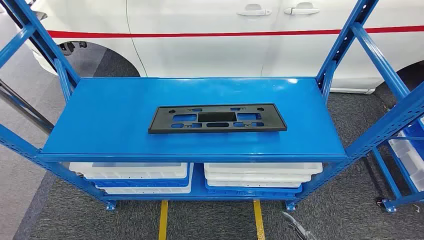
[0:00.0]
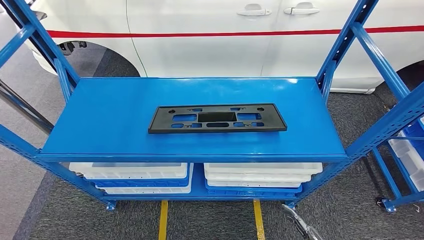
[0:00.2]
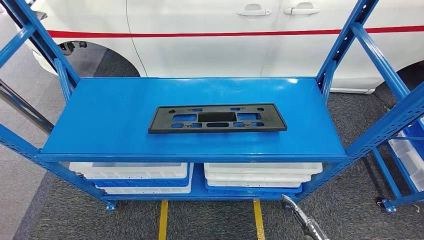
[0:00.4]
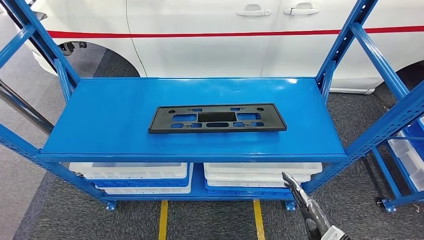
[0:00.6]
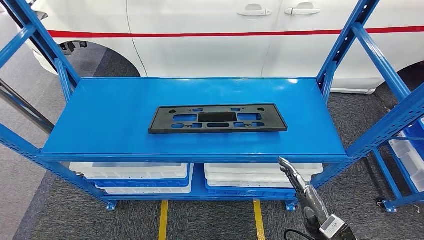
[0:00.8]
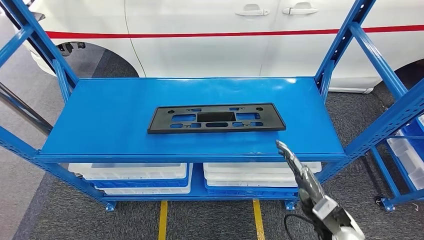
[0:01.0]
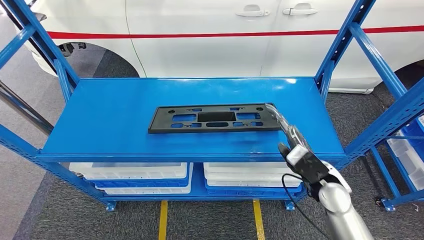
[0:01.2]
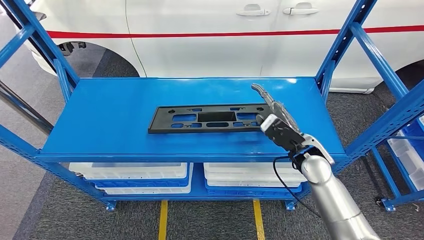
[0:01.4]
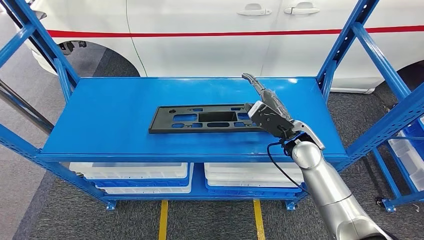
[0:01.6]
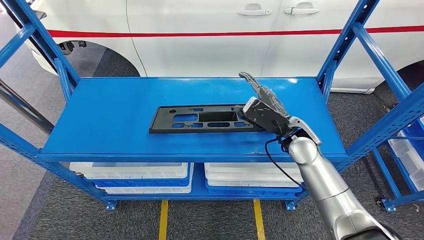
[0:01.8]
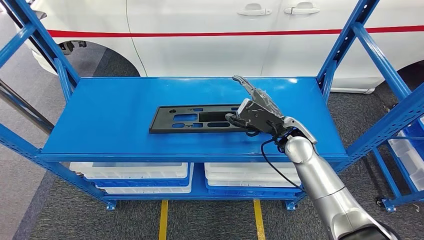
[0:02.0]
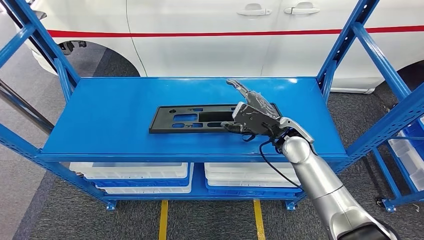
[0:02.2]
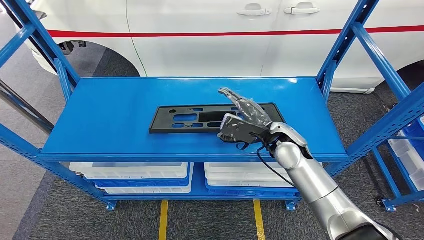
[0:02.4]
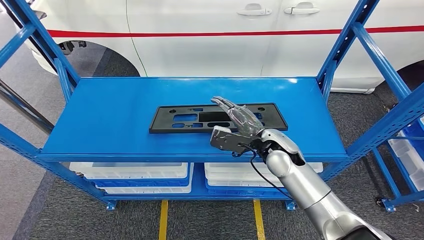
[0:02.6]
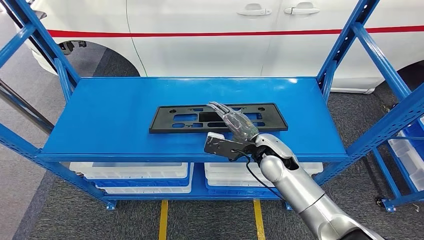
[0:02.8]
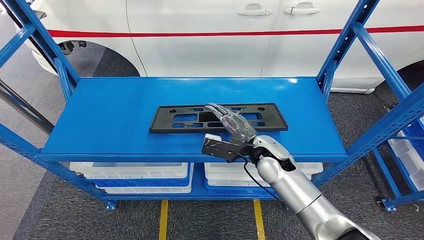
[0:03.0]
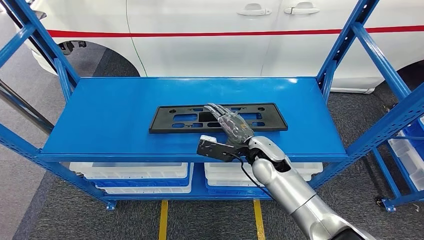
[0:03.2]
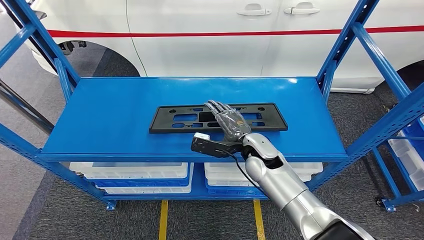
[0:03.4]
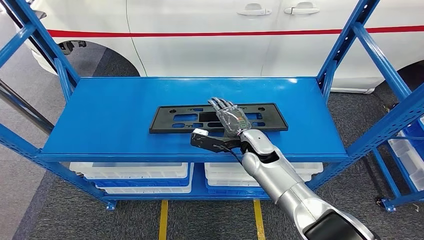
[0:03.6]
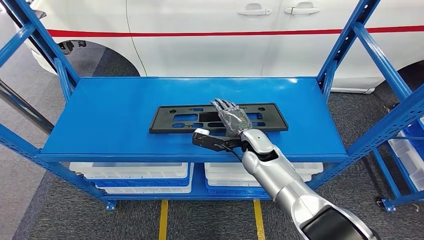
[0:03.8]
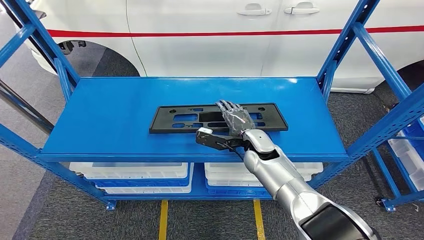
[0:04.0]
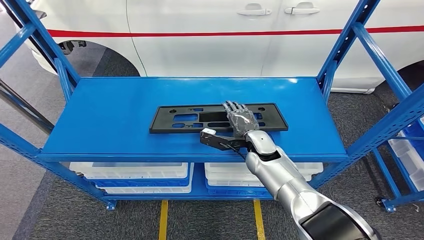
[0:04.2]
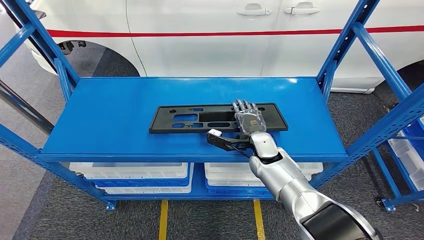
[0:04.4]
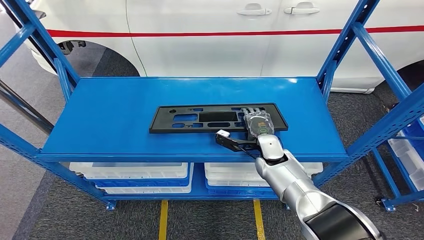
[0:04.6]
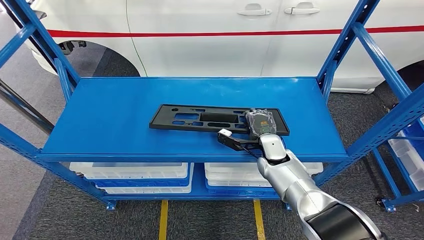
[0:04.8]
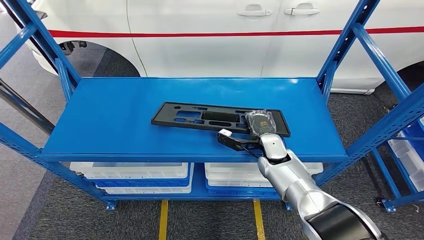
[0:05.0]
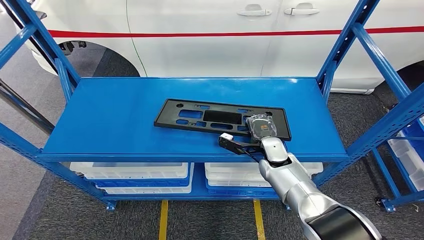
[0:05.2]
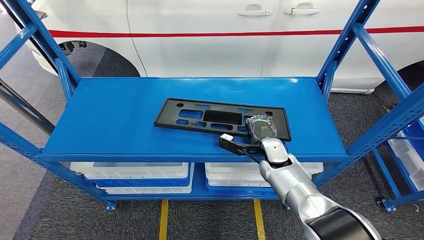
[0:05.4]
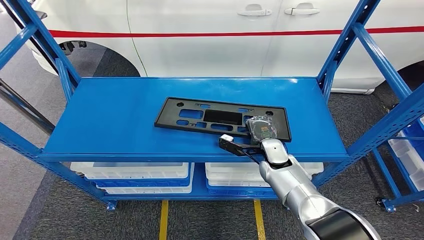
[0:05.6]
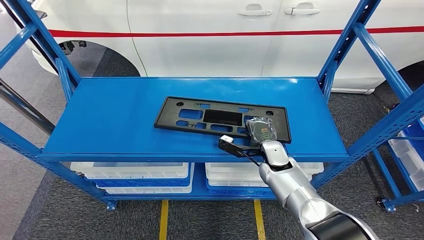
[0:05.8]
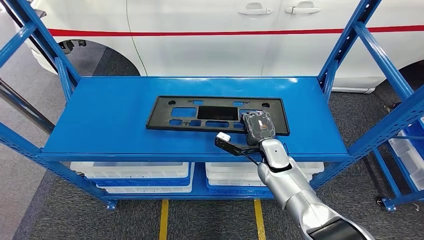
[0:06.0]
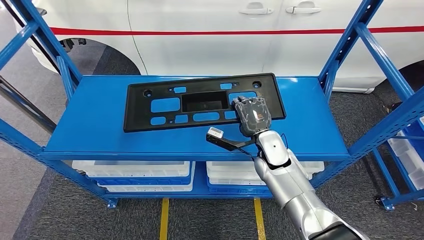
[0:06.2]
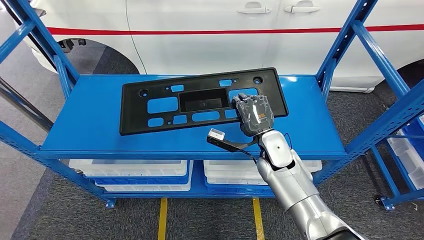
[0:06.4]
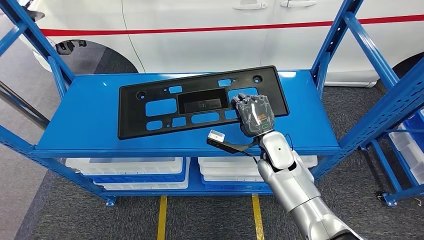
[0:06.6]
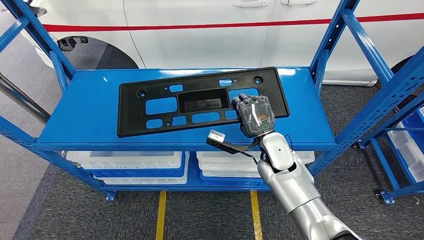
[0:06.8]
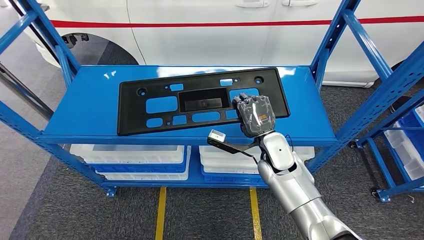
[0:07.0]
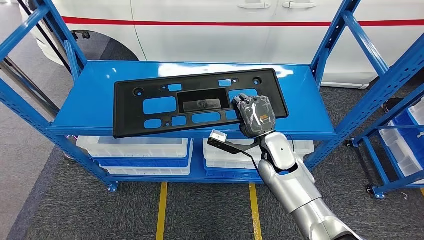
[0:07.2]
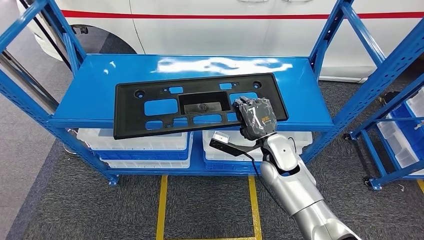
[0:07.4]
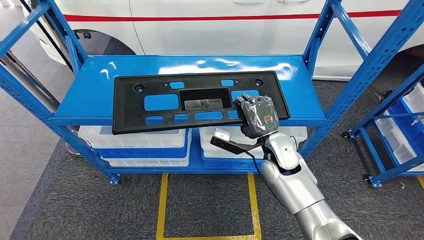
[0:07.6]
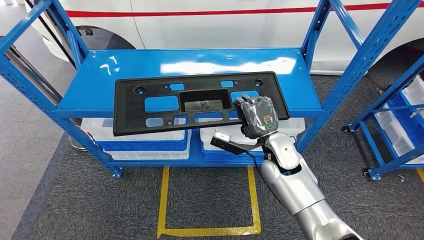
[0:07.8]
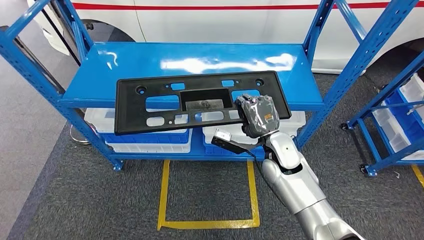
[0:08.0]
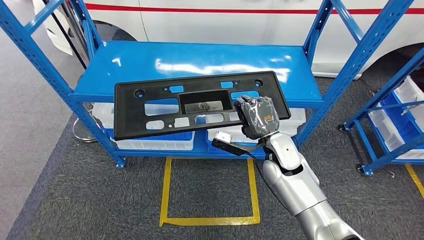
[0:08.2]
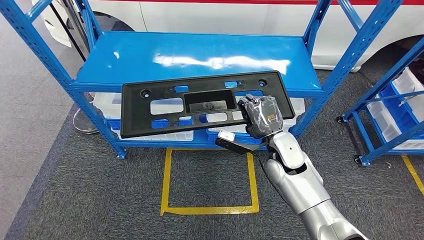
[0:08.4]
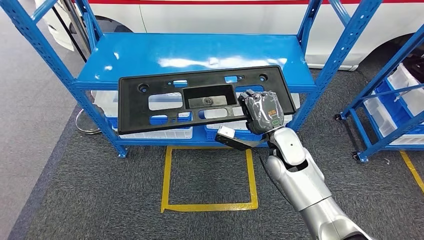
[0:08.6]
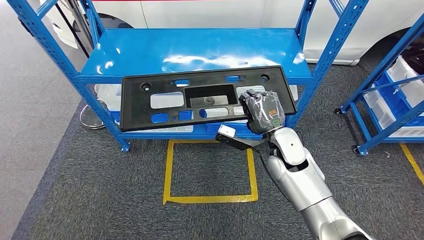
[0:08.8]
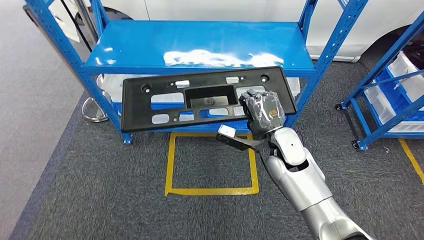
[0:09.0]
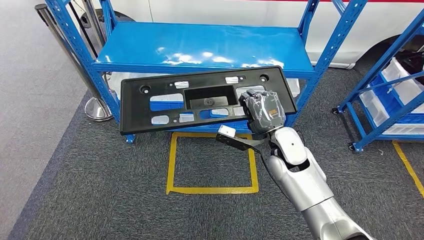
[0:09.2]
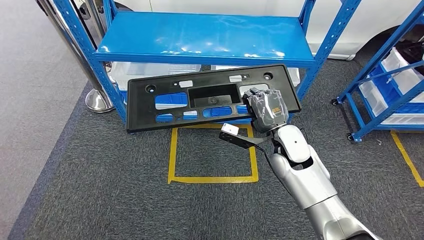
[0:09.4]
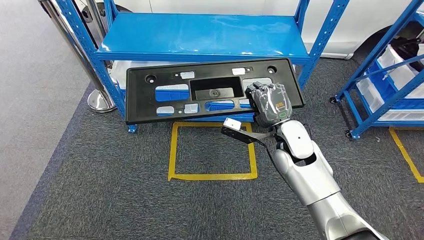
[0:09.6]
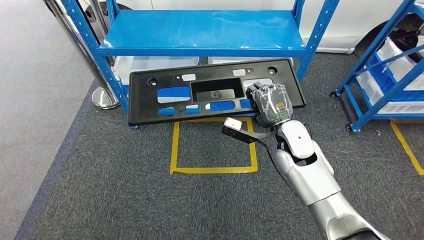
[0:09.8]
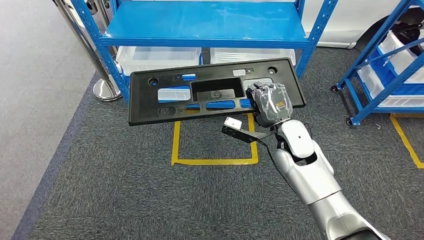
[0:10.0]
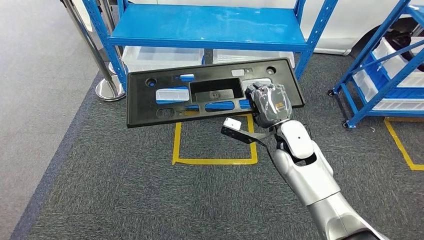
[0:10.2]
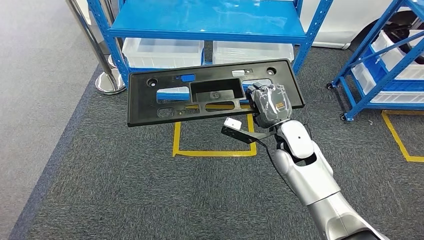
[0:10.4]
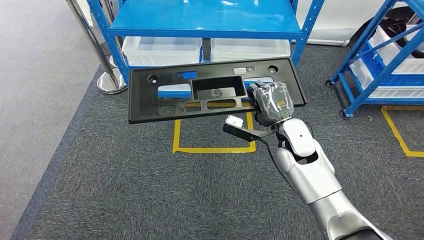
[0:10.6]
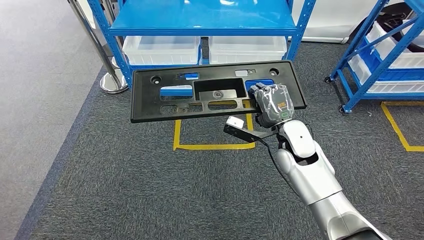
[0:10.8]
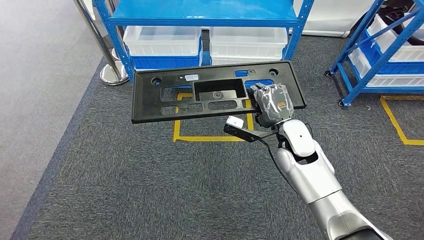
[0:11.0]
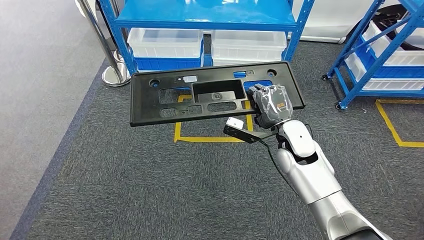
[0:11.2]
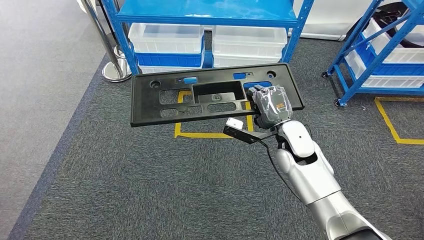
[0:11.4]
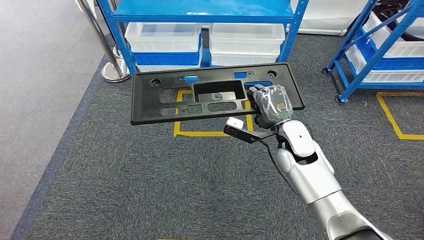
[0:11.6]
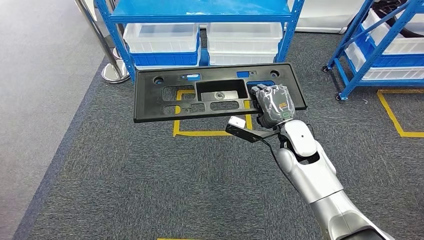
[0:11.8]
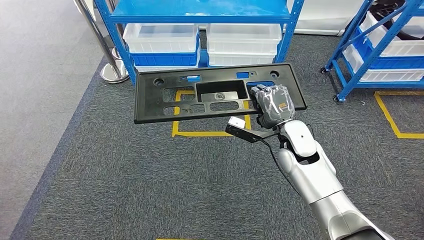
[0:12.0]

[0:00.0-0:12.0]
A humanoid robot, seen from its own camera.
Step, 0:00.0 to 0:08.4: Pick up the large material from the shelf.
0:01.6 to 0:03.0: The right hand is displaced to the left by some 10 cm.
0:03.0 to 0:04.4: The right hand moves downward, some 5 cm.
0:04.4 to 0:06.0: The hands move only a little.

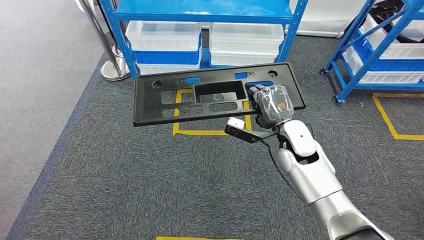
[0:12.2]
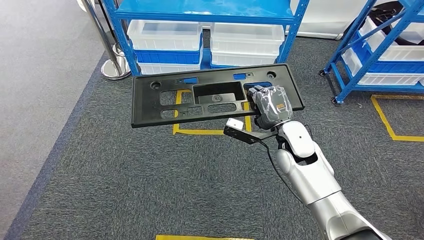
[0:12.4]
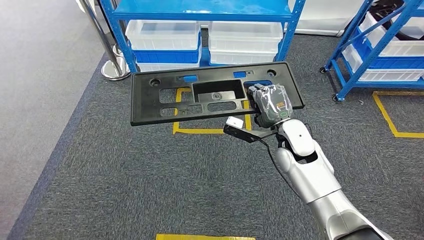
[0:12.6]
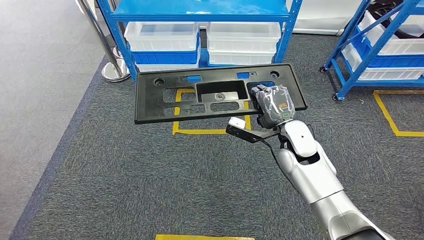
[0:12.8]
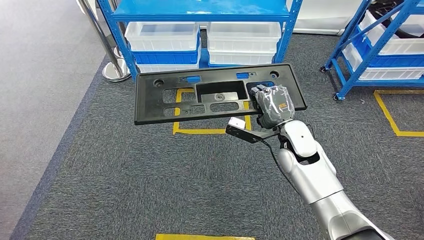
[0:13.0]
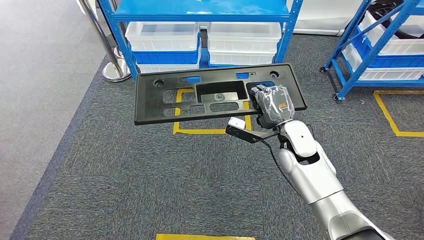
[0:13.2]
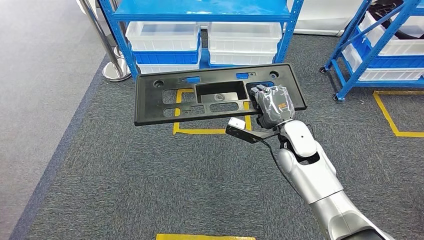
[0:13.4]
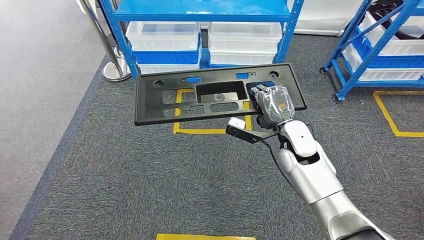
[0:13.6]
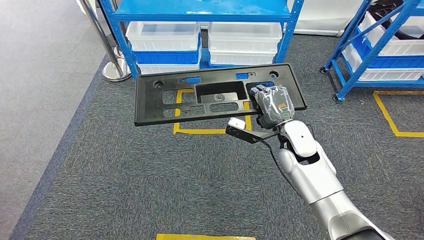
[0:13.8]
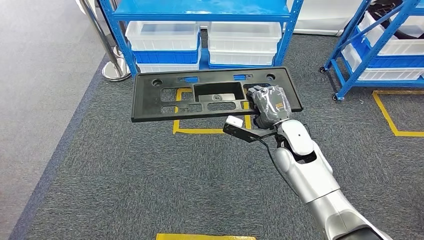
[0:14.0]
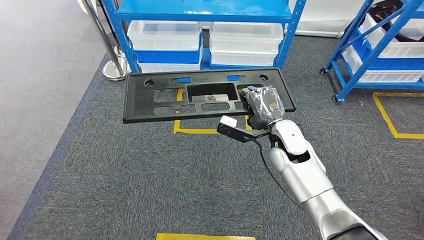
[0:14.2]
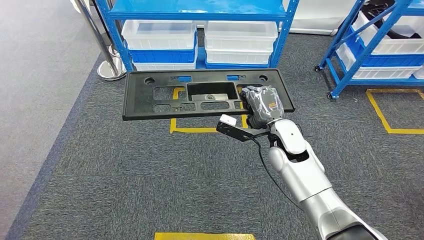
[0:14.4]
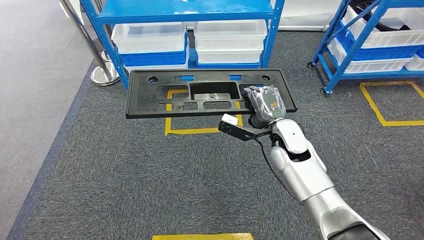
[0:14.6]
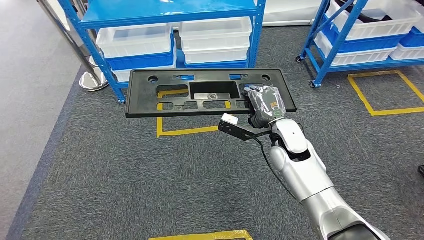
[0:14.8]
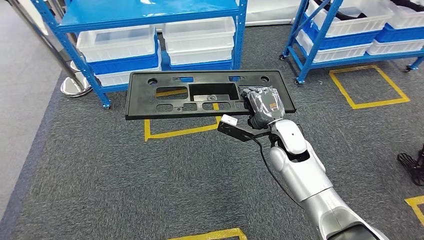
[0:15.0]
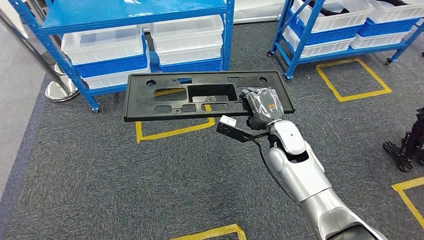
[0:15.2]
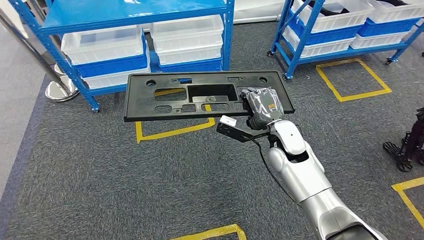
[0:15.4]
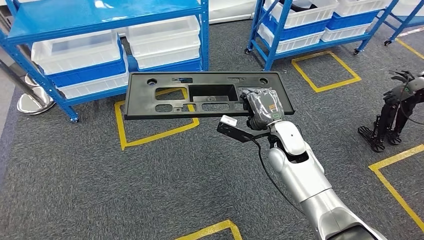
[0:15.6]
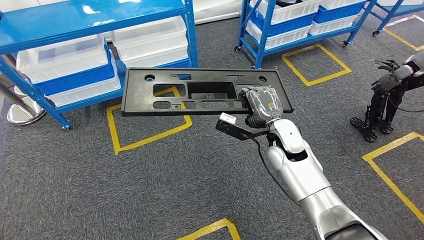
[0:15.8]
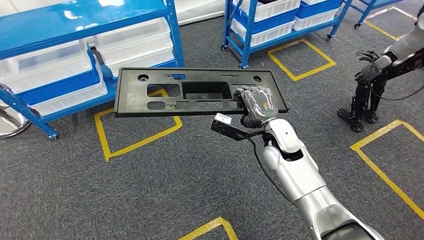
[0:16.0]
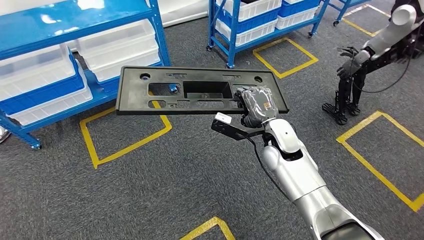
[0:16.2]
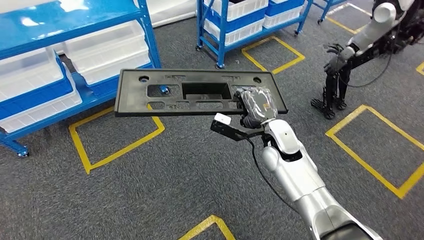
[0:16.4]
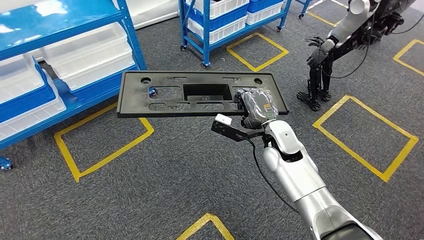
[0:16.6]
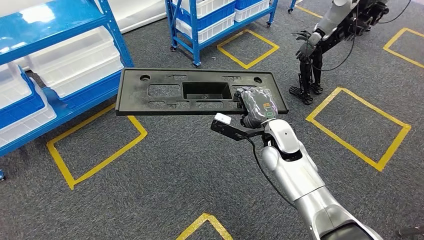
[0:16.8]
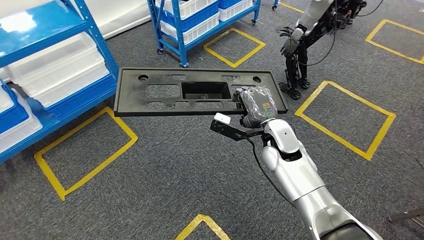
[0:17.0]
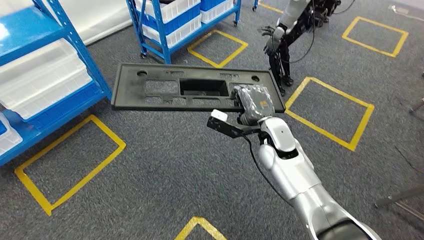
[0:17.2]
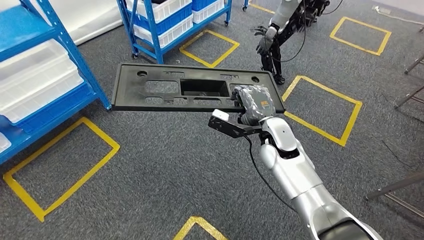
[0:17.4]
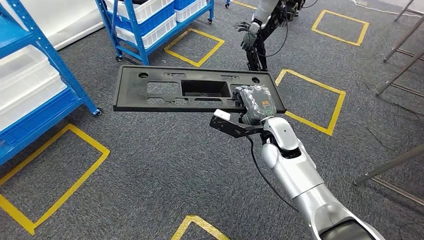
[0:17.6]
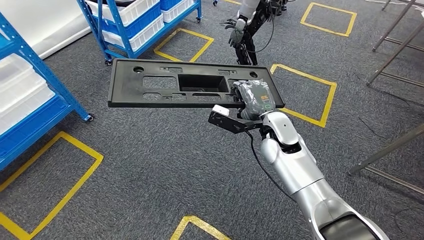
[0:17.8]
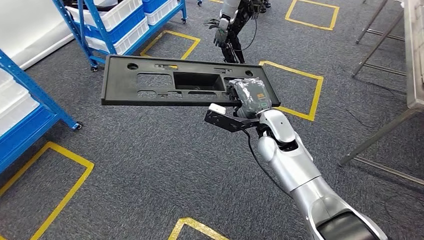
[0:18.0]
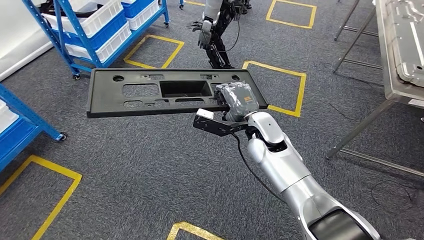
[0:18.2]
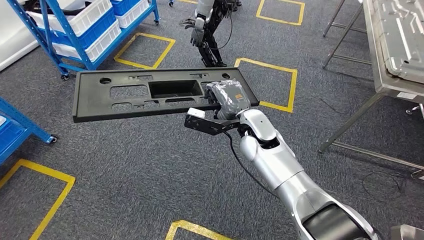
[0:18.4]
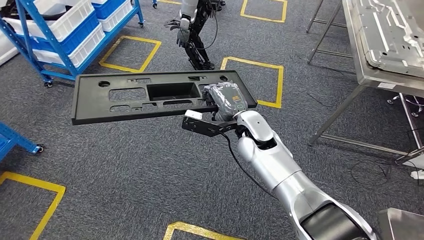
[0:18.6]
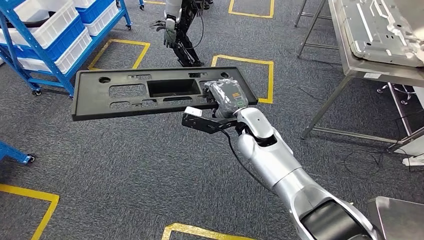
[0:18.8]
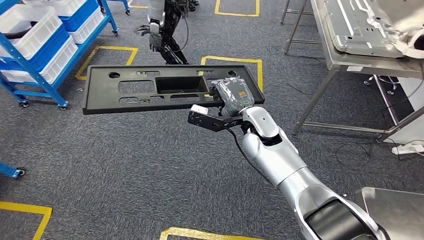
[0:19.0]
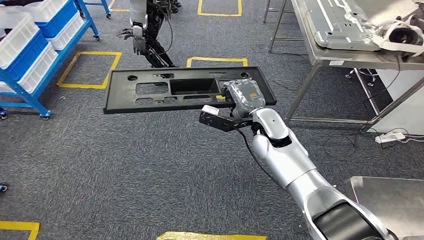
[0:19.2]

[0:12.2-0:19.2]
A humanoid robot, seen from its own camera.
0:12.2 to 0:13.6: Both hands stay about where they are.
